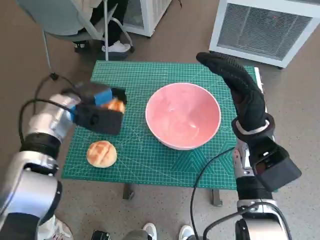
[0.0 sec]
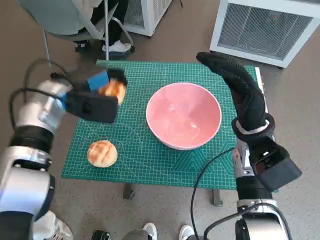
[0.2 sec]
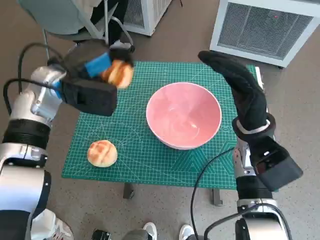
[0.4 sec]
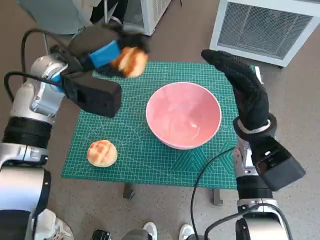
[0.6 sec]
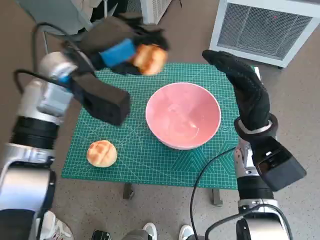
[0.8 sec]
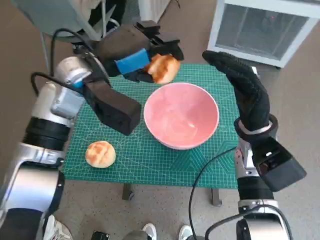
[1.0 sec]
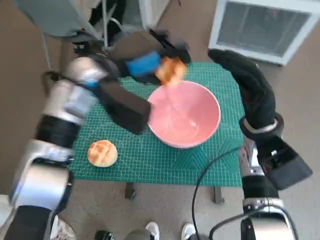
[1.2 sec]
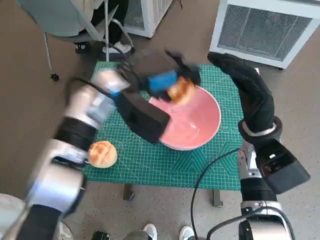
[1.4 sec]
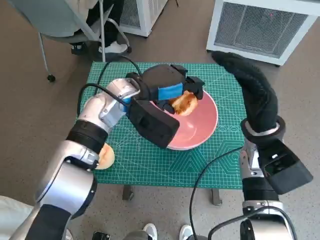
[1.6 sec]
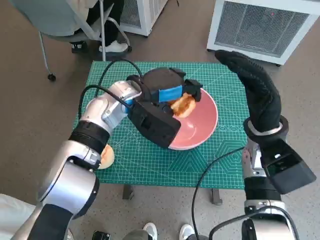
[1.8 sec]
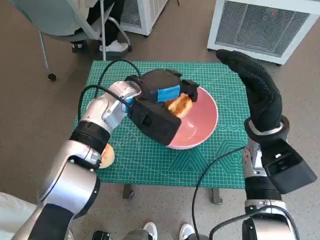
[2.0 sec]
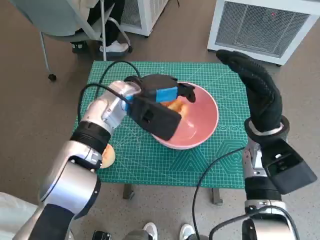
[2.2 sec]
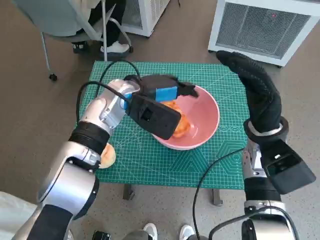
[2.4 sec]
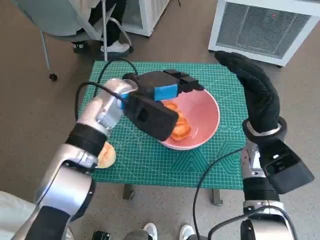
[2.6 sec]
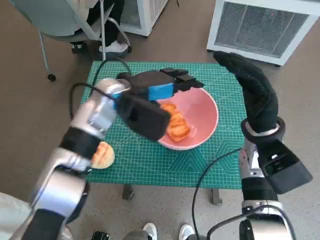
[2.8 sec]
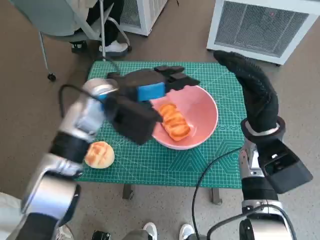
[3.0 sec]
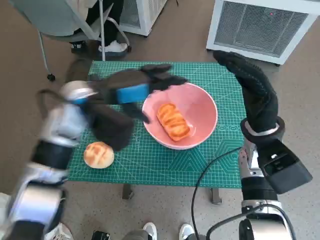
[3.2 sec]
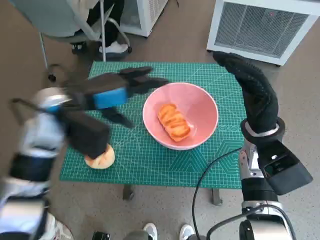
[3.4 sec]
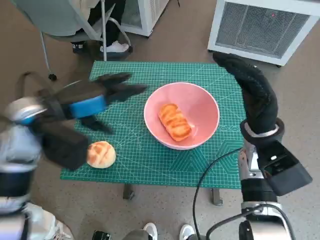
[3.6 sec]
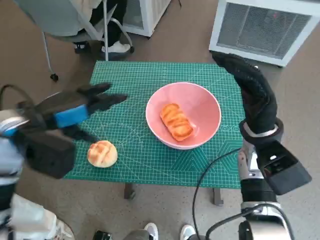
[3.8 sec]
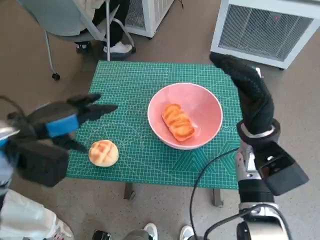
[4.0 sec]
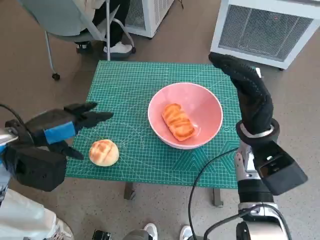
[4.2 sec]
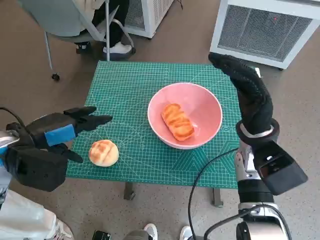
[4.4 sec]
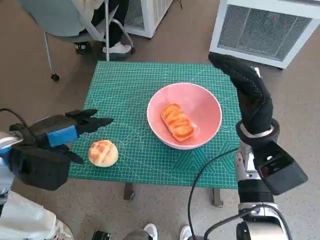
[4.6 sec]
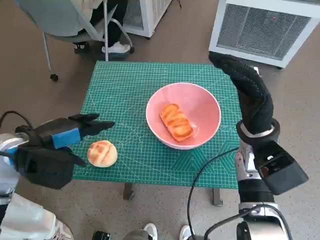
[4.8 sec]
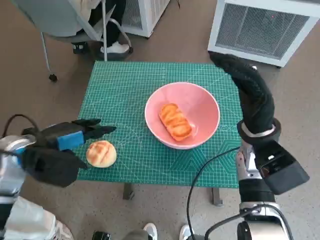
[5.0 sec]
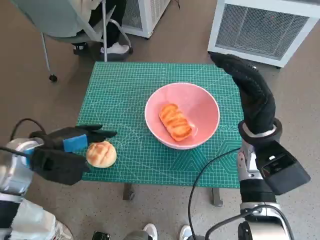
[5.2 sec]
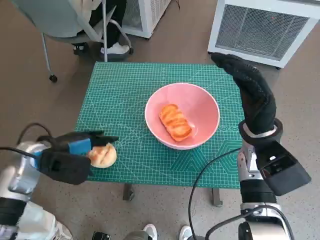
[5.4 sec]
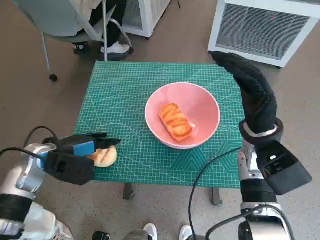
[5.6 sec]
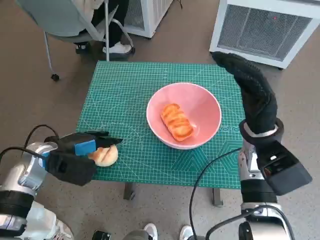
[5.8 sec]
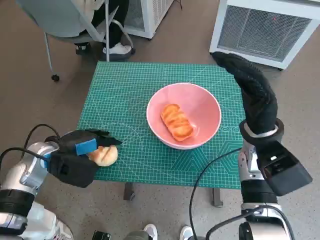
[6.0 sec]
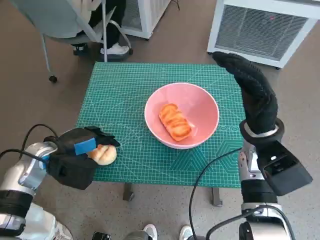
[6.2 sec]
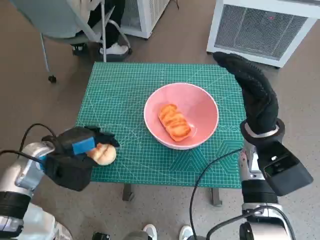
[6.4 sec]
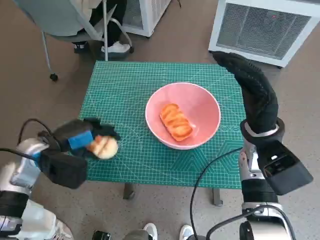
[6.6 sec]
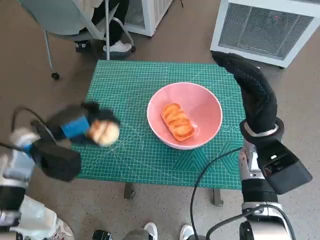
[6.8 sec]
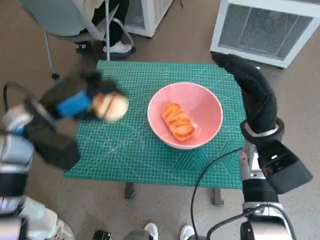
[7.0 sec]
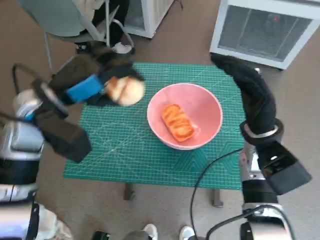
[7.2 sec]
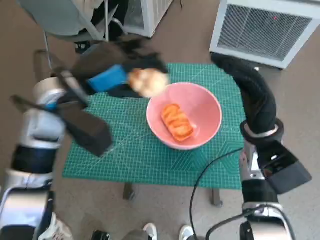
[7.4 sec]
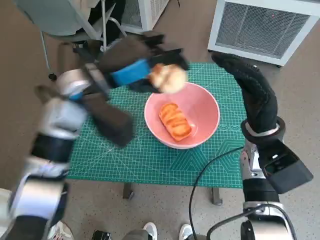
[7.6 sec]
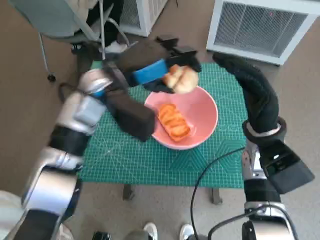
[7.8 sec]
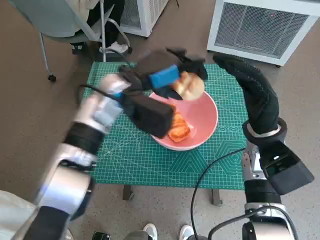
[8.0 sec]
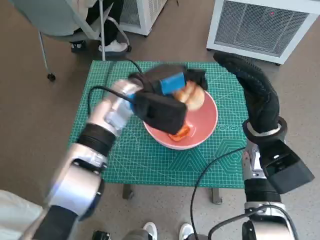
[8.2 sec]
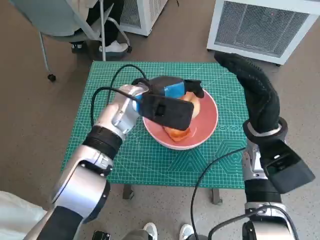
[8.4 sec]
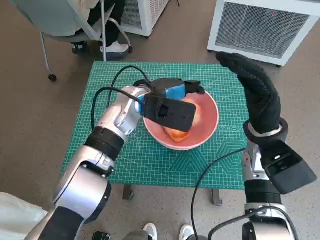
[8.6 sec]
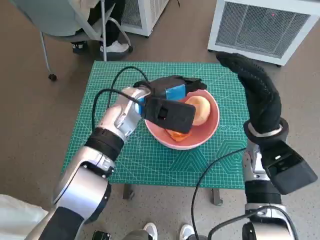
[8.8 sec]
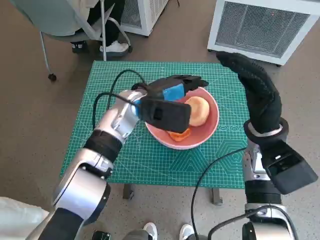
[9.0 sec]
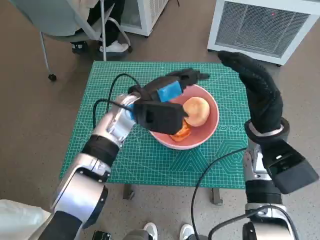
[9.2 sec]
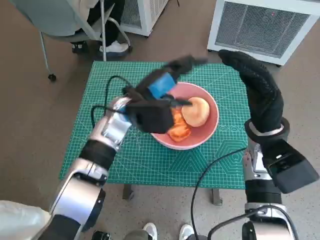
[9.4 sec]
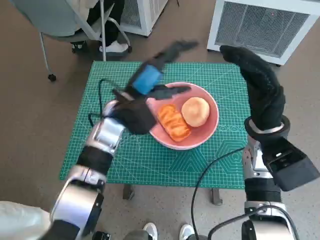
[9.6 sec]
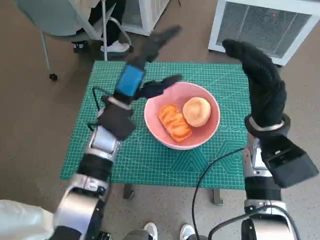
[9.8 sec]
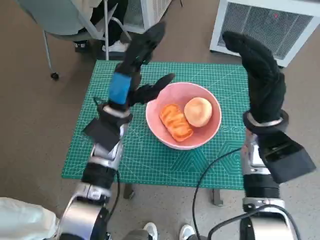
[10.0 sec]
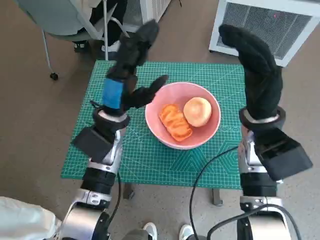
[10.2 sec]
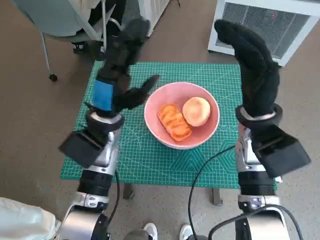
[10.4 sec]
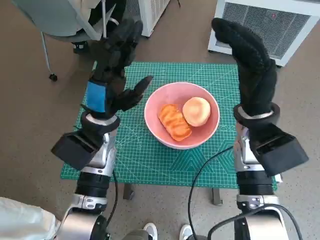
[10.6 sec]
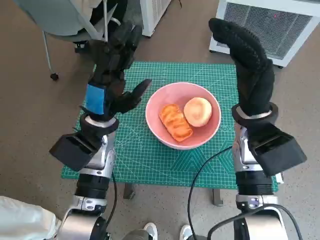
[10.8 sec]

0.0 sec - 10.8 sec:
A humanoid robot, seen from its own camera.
Task of the whole recording: Push the bowl to the center of the table and put the bread into the bowl.
Step, 0.0 sec - 2.2 sec: Place the long bread in pink bowl with left hand.
Step, 2.4 sec - 6.2 sec: Grasp the round bread with left hand.
Step, 6.4 sec - 8.8 sec: Place the round bread in pink bowl with left hand.
0.0 sec - 1.6 sec: The left hand is displaced to the right and upward by about 15 cm.
1.6 sec - 3.0 sec: The hands stay close to where they were, moving slightly.
3.0 sec - 4.6 sec: The left hand is displaced to the left and backward by some 20 cm.
4.6 sec - 6.2 sec: The left hand moves downward, approximately 10 cm.
6.2 sec - 7.8 sec: The left hand heads to the right, upward and forward, covering approximately 20 cm.
7.8 sec - 9.2 sec: The left hand is displaced downward by roughly 5 cm.
9.2 sec - 10.8 sec: The left hand heads to the left and backward, covering some 10 cm.

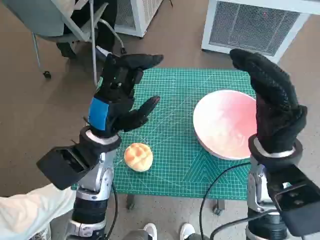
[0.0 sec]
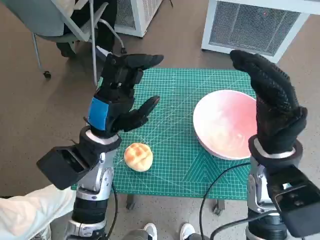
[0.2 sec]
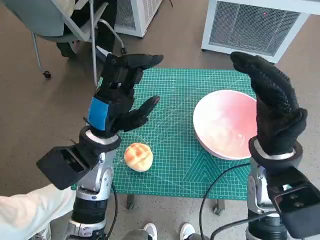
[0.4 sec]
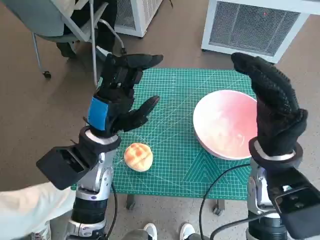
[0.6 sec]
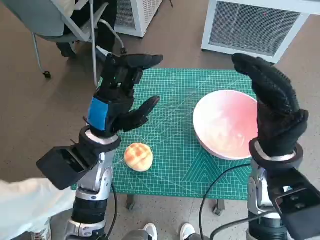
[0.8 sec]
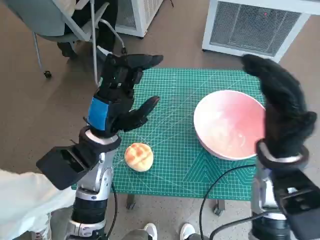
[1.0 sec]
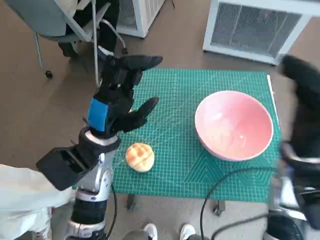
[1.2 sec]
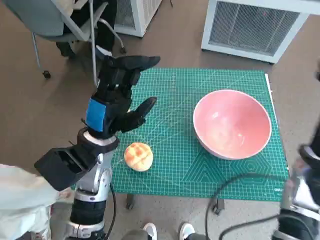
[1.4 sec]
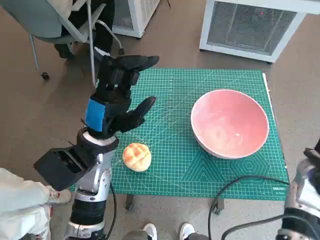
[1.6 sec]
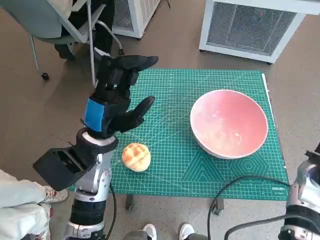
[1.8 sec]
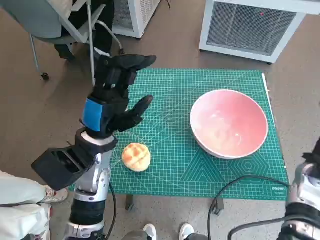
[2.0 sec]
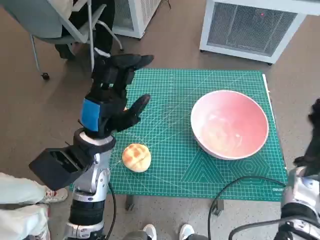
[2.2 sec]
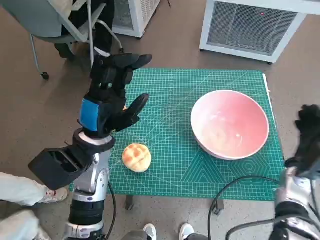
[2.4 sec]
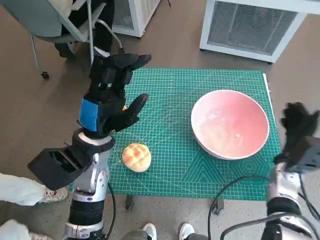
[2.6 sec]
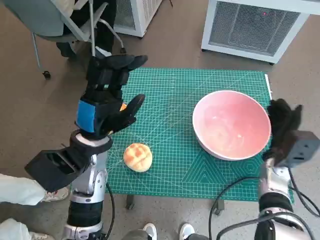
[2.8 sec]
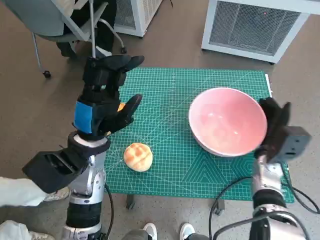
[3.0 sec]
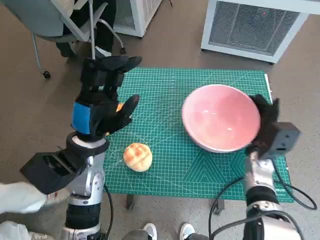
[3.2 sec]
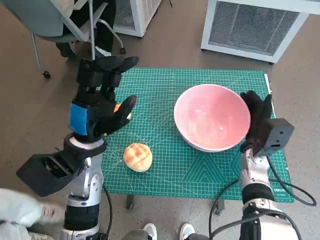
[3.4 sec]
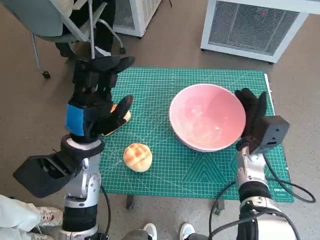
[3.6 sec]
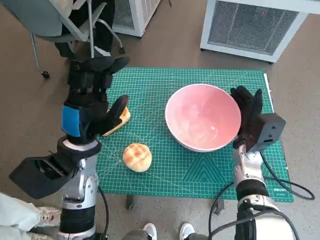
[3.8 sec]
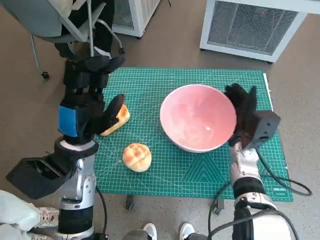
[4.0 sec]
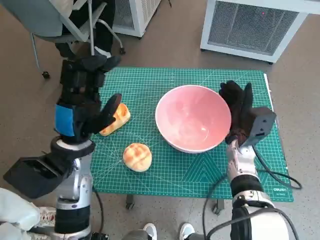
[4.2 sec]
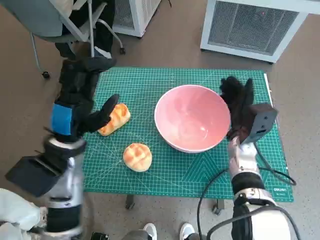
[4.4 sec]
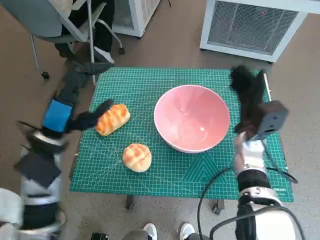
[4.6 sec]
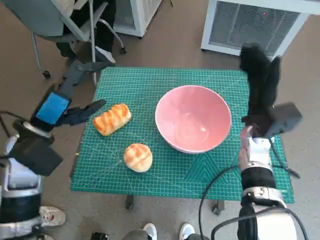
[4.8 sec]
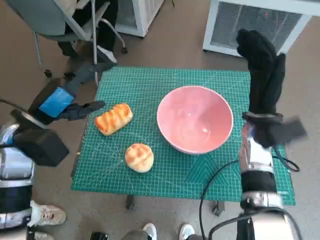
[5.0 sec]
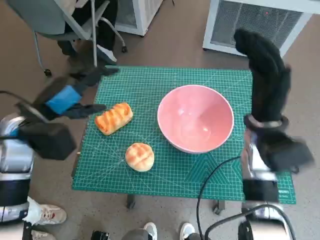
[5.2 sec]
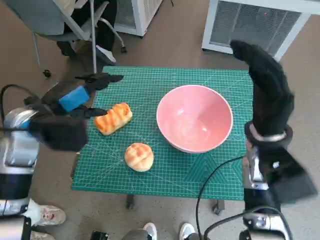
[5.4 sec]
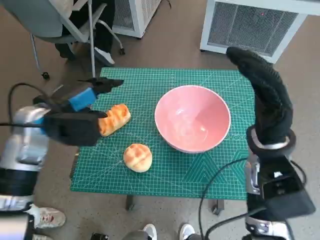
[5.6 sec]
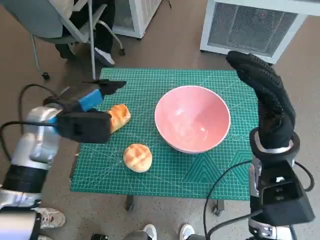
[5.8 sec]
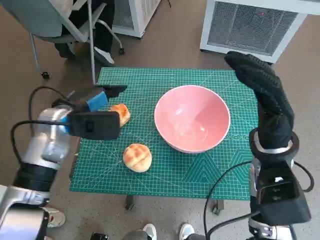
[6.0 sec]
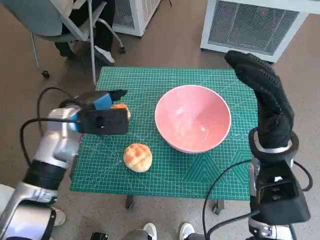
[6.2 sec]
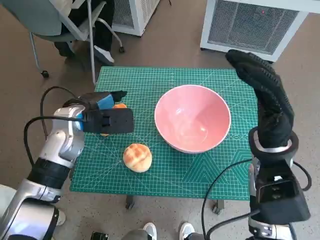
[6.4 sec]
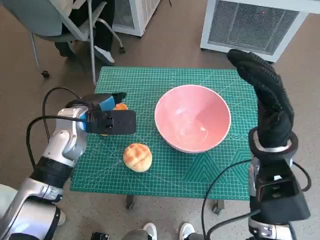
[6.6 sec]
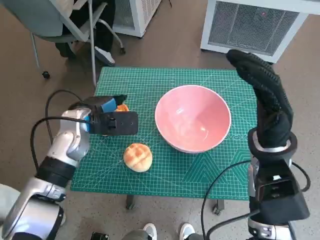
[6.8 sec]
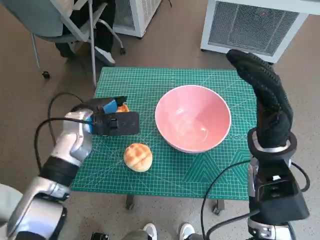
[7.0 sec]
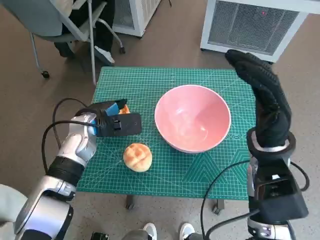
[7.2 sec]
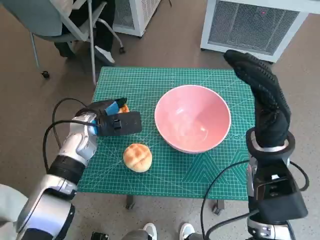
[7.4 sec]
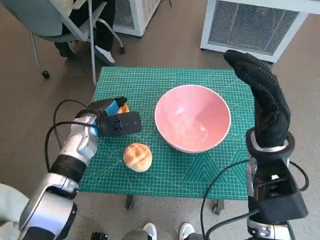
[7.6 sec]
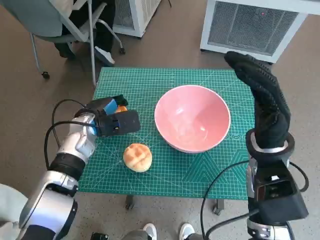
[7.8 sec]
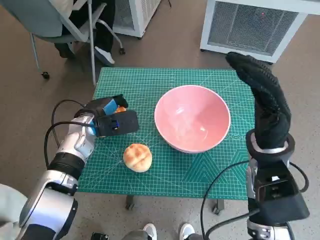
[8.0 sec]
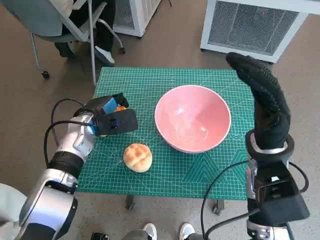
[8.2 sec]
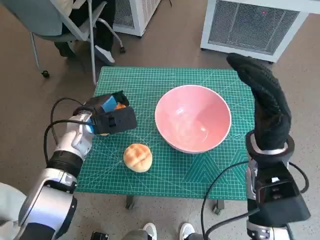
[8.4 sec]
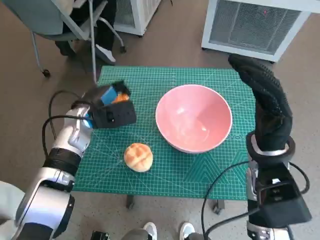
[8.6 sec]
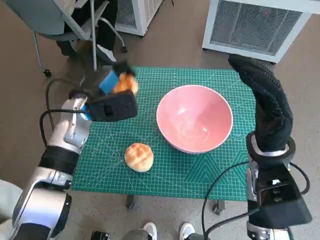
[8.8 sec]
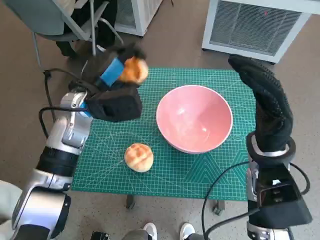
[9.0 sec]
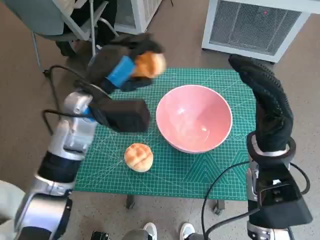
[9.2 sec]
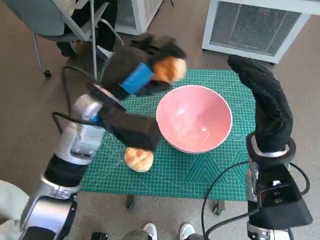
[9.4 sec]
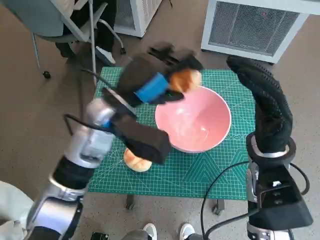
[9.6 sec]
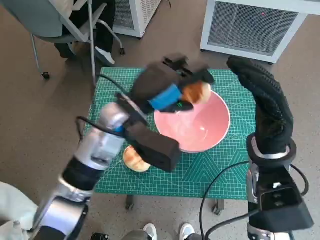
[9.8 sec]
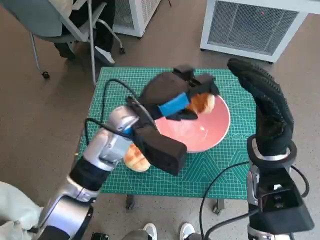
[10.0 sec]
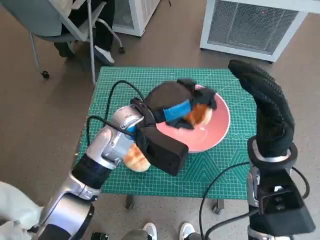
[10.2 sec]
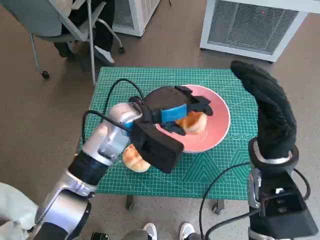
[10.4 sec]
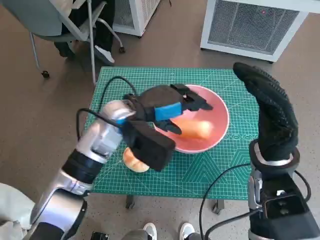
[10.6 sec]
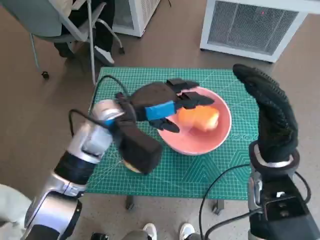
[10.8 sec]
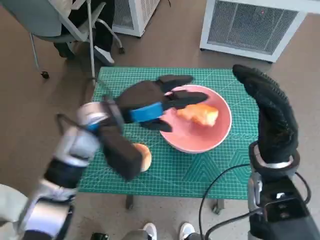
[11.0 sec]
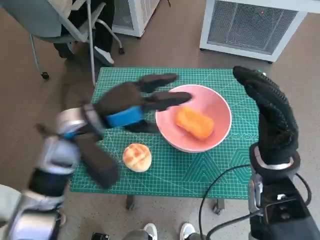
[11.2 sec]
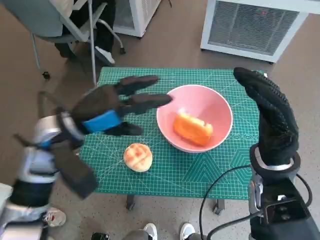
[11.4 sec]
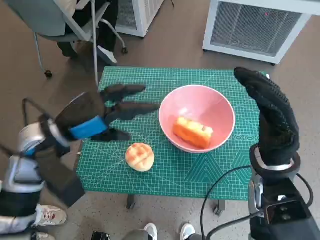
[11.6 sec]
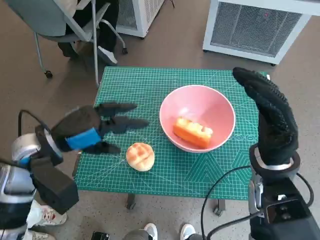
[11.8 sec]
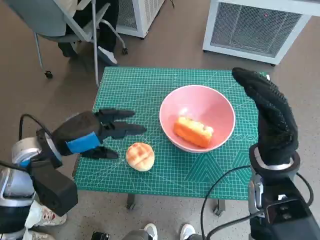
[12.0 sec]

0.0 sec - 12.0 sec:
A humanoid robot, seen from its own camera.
Task of the whole recording: Push the bowl to the center of the table and put the bread into the bowl.
Step, 0.0 sec - 4.6 sec: Move the pink bowl to the center of table with right hand.
Step, 5.0 sec - 7.8 sec: Grasp the long bread with left hand.
Step, 8.2 sec - 10.6 sec: Place the long bread in pink bowl with left hand.
1.6 sec - 3.0 sec: The right hand is displaced downward by about 10 cm.
3.0 sec - 4.4 sec: The right hand shifts some 5 cm to the left.
4.4 sec - 6.0 sec: The right hand is displaced upward and backward by about 10 cm. Meanwhile the left hand heads forward, covering some 5 cm.
6.0 sec - 7.6 sec: The left hand heads downward, covering approximately 5 cm.
7.6 sec - 9.0 sec: The left hand shifts some 10 cm upward.
9.0 sec - 10.4 sec: The left hand travels to the right by roughly 10 cm.
10.4 sec - 12.0 sec: The left hand moves to the left and backward, roughly 15 cm.
